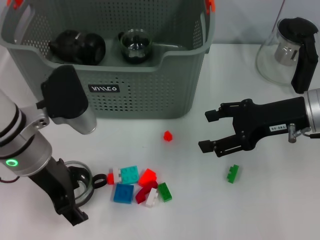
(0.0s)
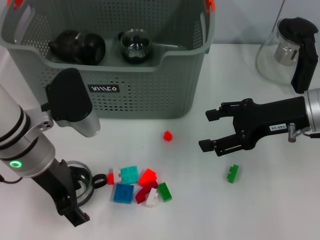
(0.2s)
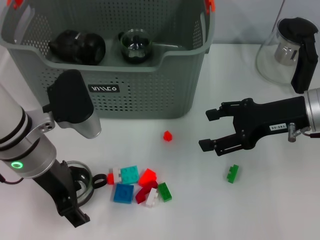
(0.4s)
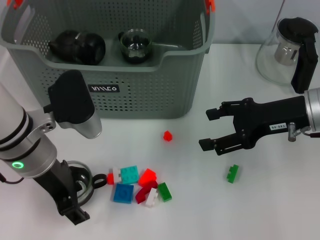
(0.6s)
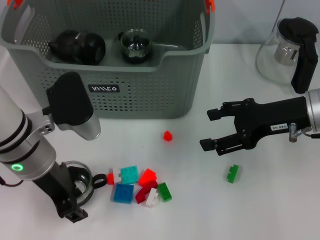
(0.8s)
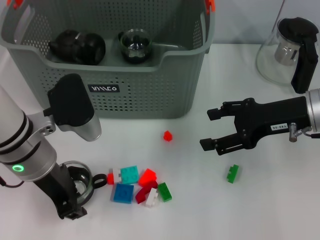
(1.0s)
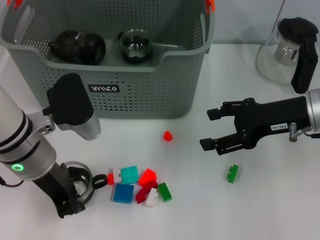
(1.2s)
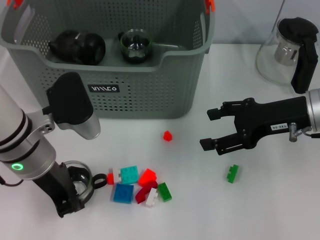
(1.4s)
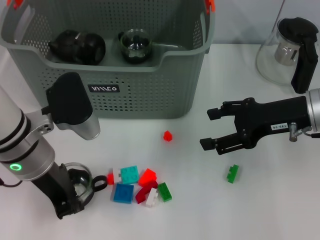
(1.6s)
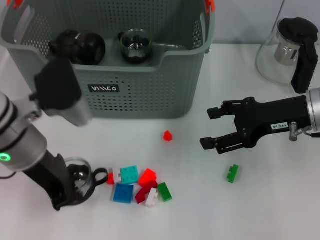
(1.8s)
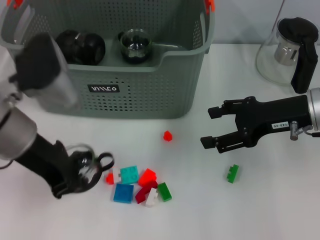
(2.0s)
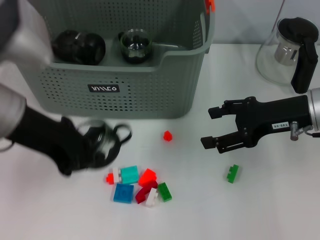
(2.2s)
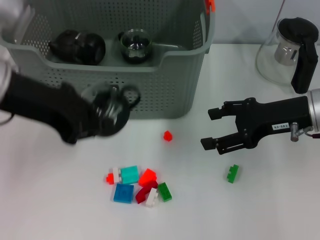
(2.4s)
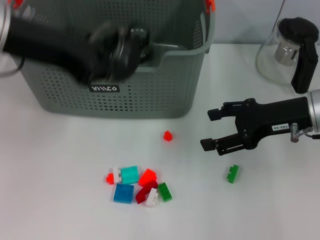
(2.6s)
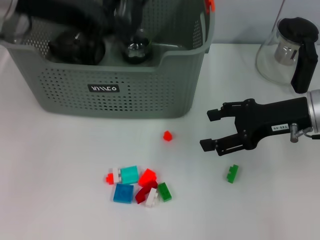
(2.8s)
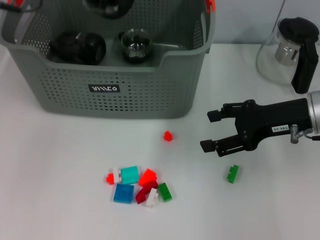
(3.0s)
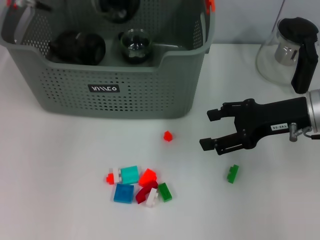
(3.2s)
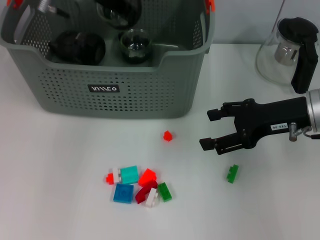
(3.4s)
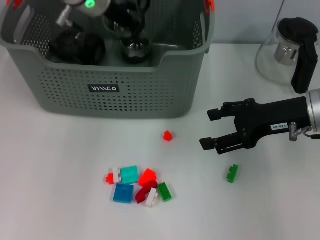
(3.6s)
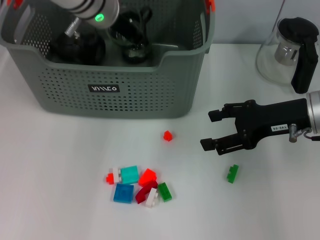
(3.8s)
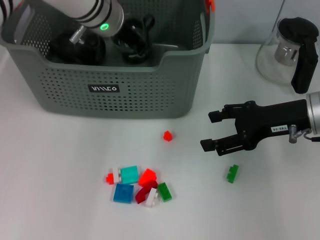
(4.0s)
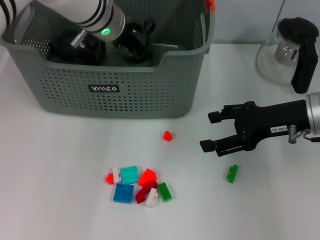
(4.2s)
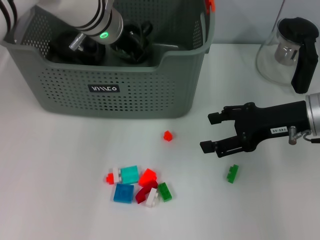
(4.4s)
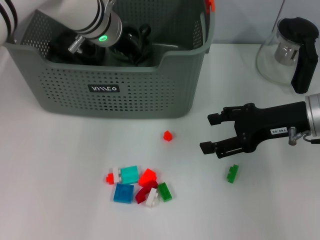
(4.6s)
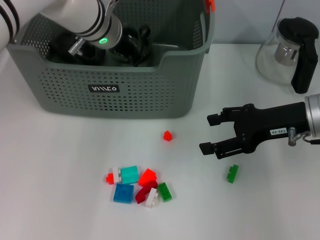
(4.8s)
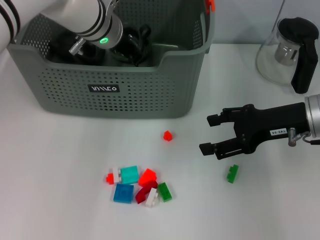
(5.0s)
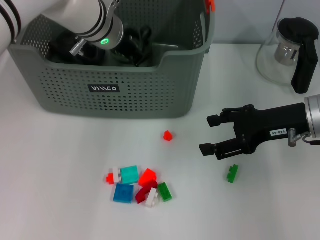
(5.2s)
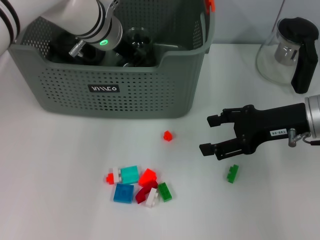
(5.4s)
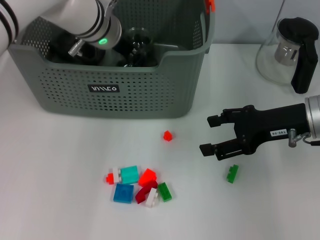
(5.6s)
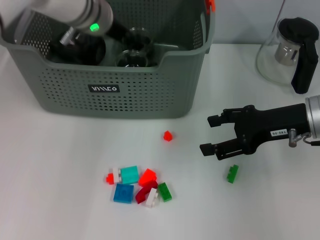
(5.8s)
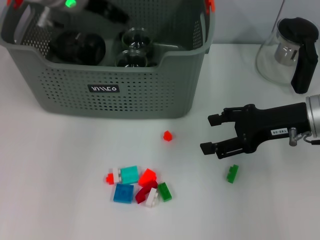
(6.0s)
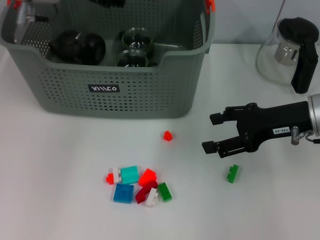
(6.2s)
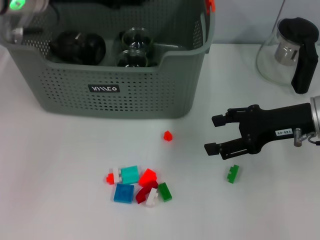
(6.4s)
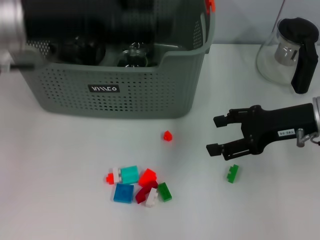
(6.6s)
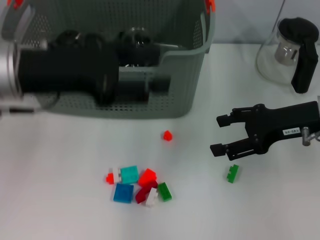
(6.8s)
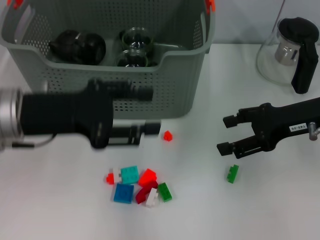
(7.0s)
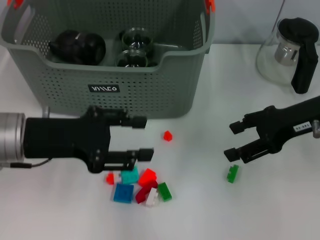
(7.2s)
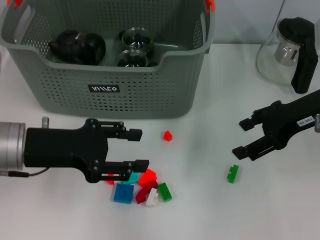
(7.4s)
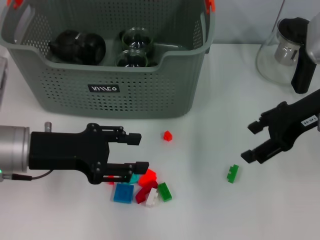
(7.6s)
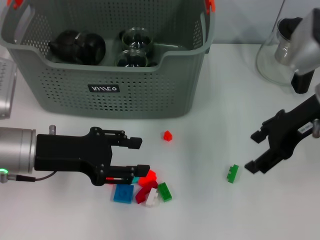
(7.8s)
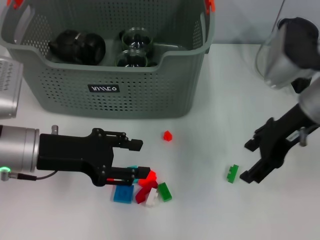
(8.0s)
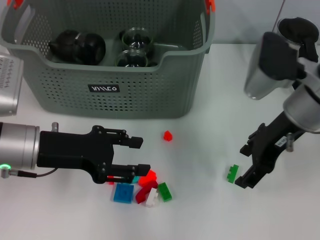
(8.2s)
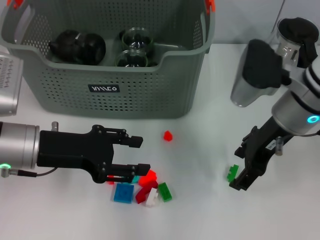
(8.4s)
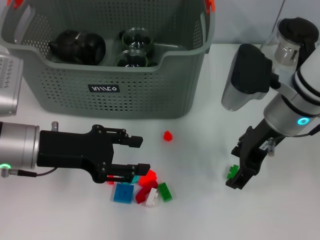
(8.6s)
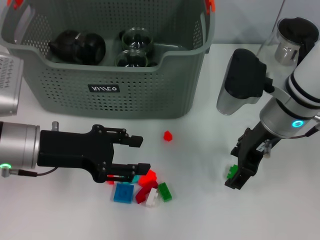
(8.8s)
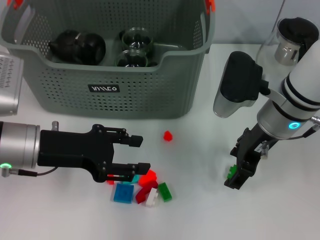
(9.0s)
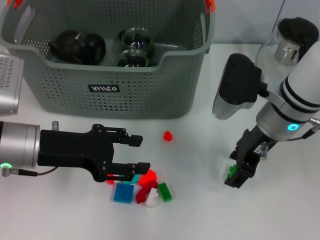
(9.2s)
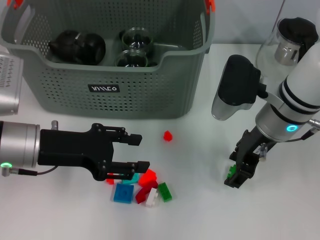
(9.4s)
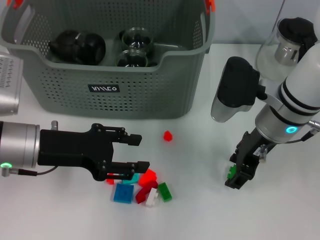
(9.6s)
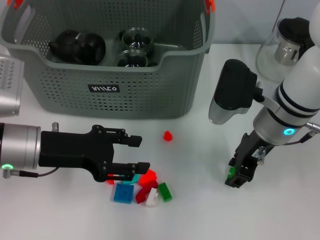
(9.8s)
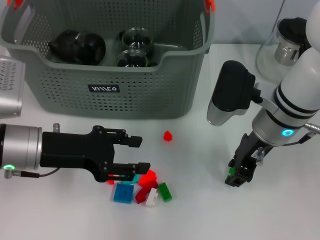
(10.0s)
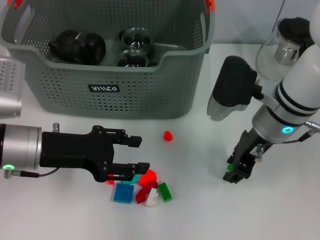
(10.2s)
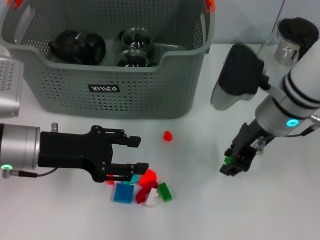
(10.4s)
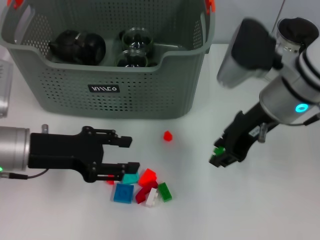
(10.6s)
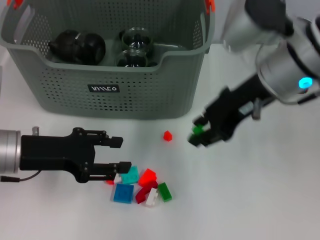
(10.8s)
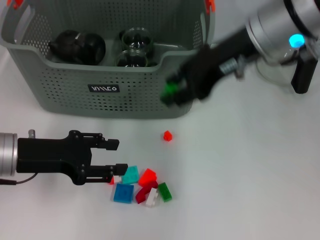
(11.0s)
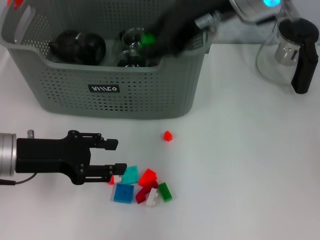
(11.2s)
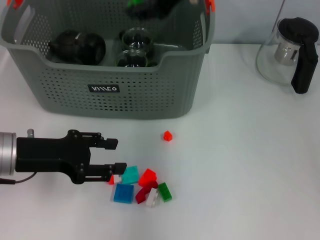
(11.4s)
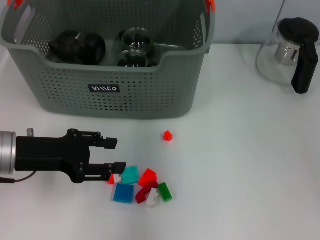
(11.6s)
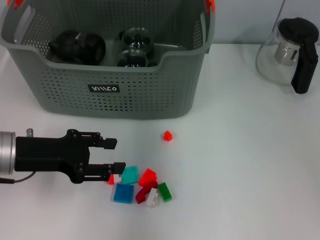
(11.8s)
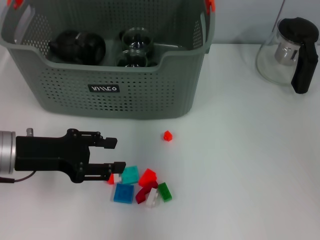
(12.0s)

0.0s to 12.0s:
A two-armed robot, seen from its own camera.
Task of the whole recording: pick up the teacup on the table and place it into the storage bin, pick up the block on the table and place it into the storage bin.
Step, 1.8s to 5.4s: Place the cup in the storage box with left gripper.
Step, 5.6s to 10.0s: Grasp the green block with right gripper.
Step, 10.2s to 12.0s: Place the green block in the storage box with right gripper.
0.0s to 1.6s: The left gripper closes its fingers.
1.6s to 3.0s: The left gripper heads upward and forward, covering roughly 20 cm.
3.0s to 4.4s: The left gripper goes approximately 15 cm downward, to the right and forward.
4.4s to 6.0s: The left gripper travels upward and to the left by some 10 cm, and opens.
6.0s to 7.6s: The right gripper travels upward by some 5 cm, while the left gripper moves backward and downward, roughly 20 cm.
7.6s to 9.0s: The right gripper heads to the left, covering some 10 cm.
9.0s to 10.4s: The right gripper closes up.
10.4s to 12.0s: The right gripper shifts about 20 cm upward, forward and to the left.

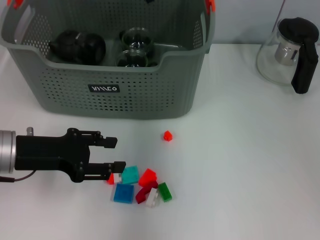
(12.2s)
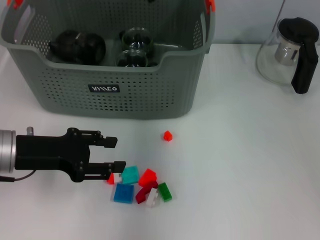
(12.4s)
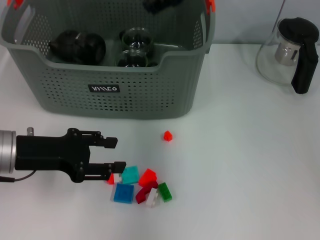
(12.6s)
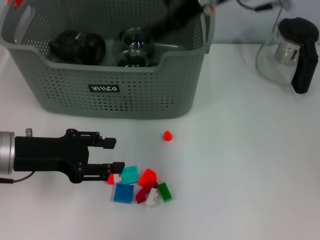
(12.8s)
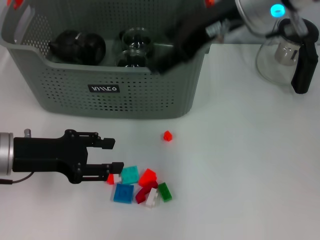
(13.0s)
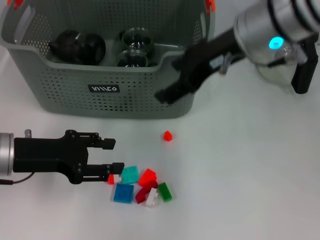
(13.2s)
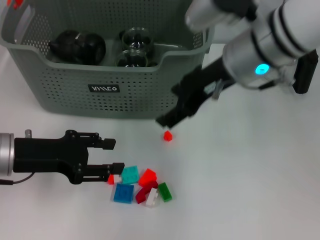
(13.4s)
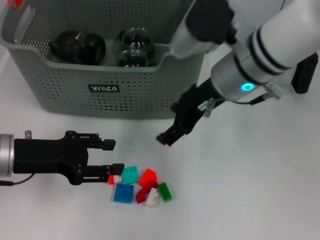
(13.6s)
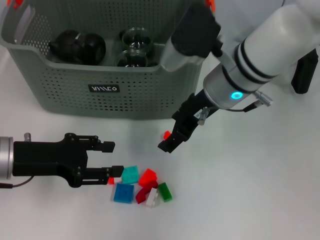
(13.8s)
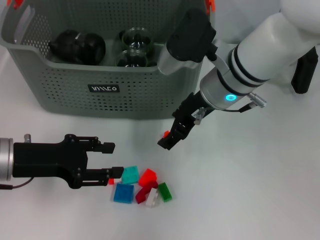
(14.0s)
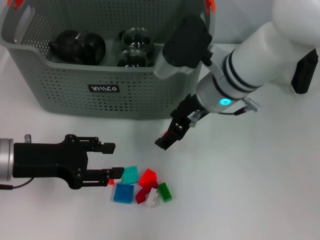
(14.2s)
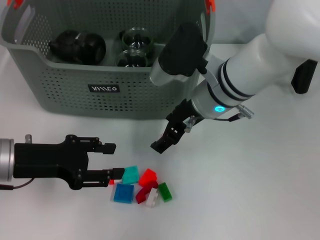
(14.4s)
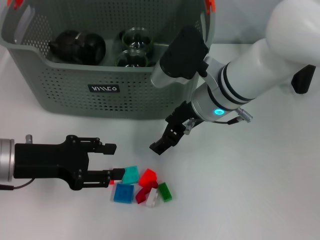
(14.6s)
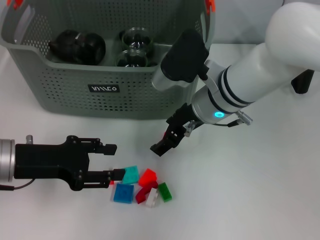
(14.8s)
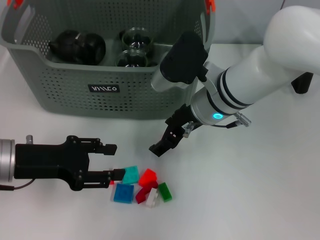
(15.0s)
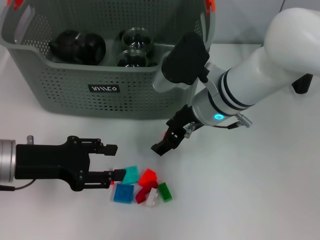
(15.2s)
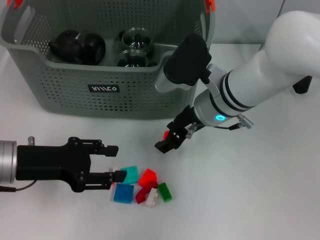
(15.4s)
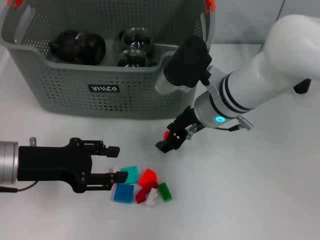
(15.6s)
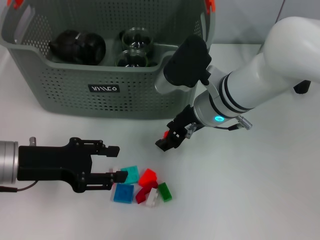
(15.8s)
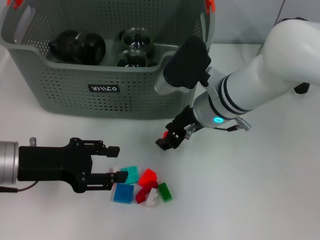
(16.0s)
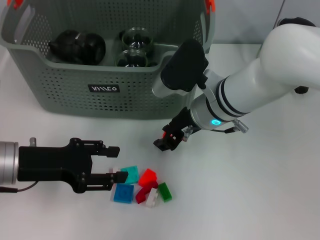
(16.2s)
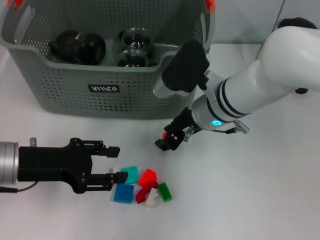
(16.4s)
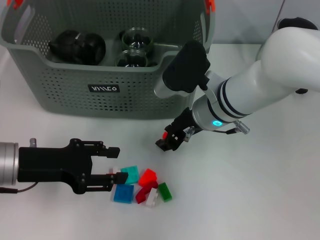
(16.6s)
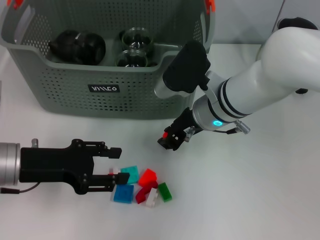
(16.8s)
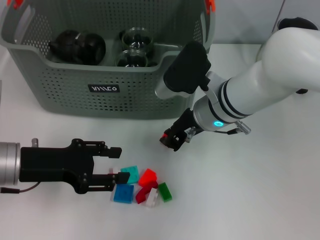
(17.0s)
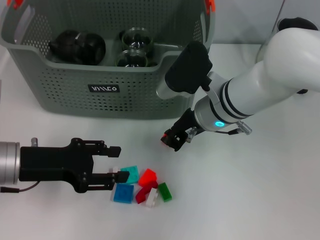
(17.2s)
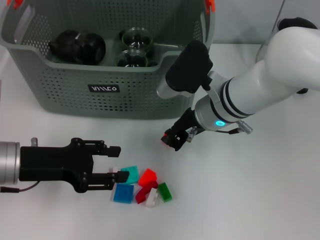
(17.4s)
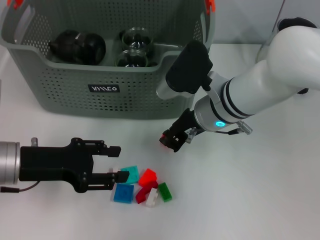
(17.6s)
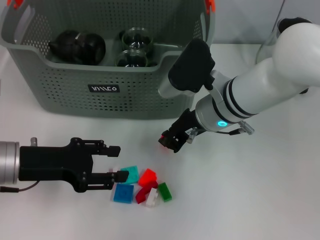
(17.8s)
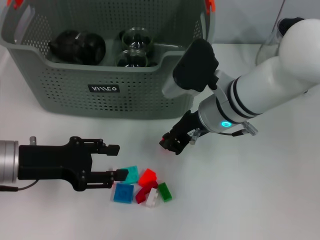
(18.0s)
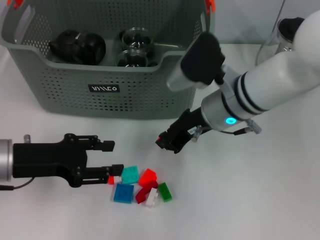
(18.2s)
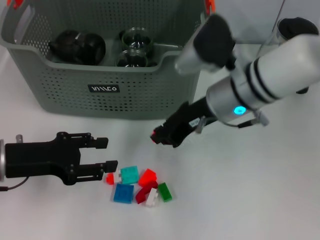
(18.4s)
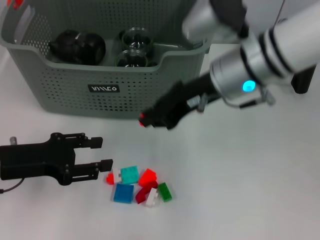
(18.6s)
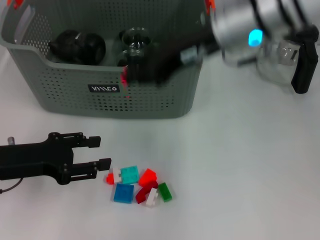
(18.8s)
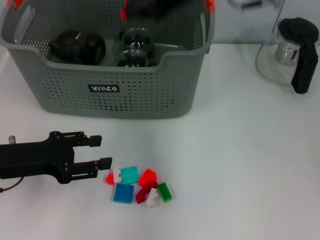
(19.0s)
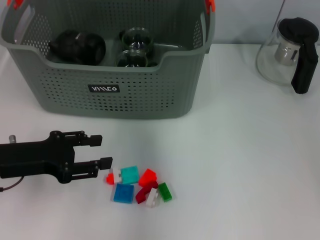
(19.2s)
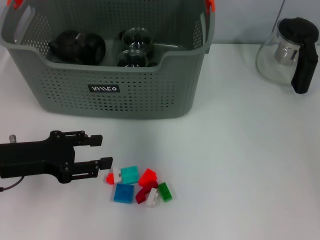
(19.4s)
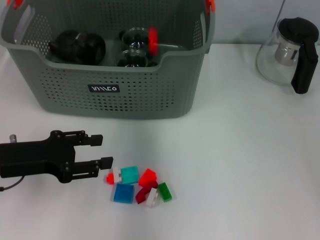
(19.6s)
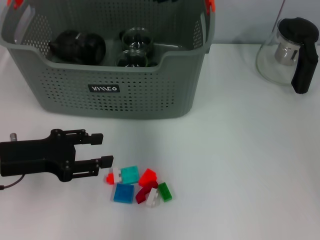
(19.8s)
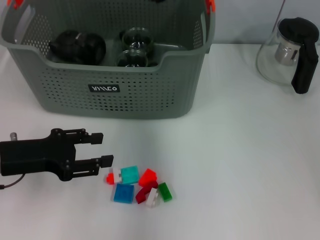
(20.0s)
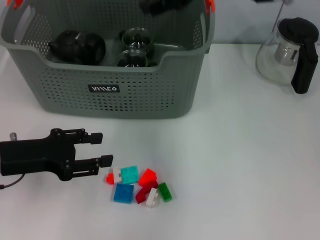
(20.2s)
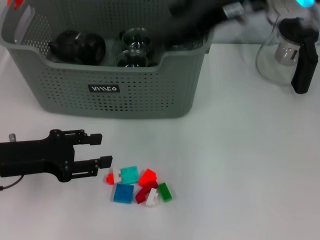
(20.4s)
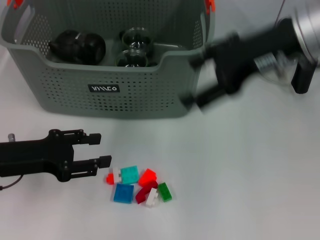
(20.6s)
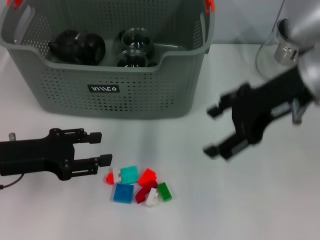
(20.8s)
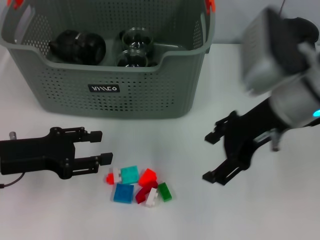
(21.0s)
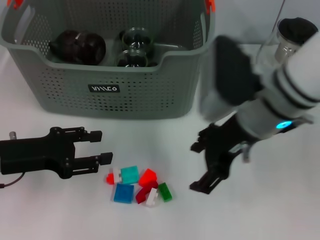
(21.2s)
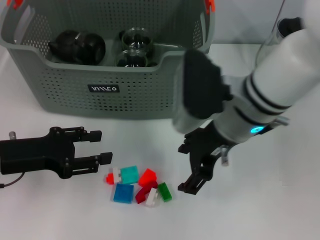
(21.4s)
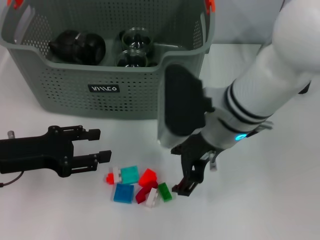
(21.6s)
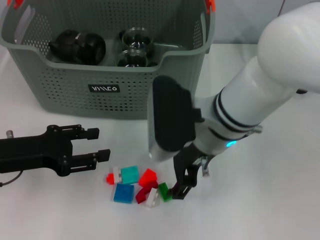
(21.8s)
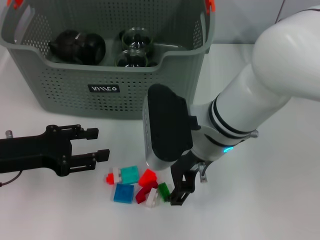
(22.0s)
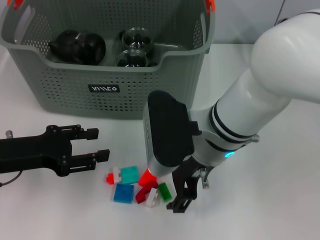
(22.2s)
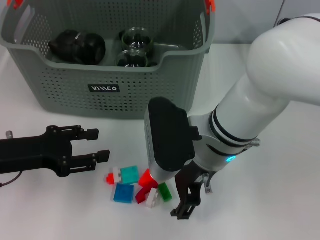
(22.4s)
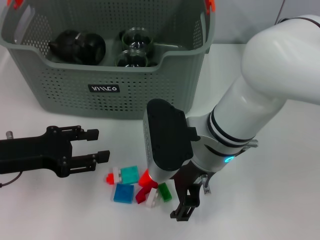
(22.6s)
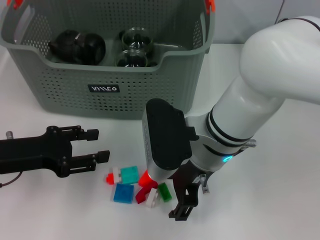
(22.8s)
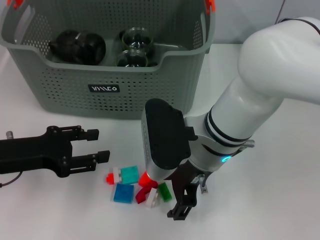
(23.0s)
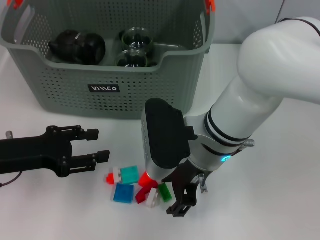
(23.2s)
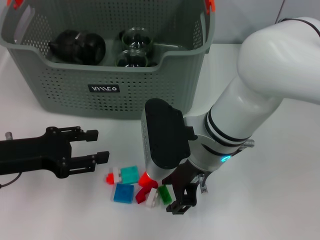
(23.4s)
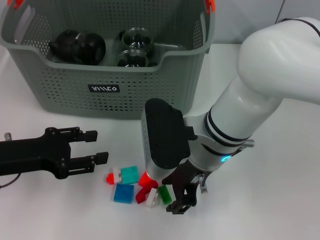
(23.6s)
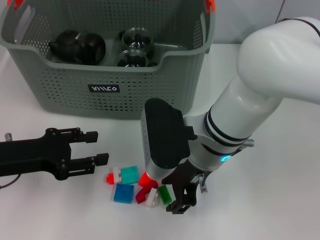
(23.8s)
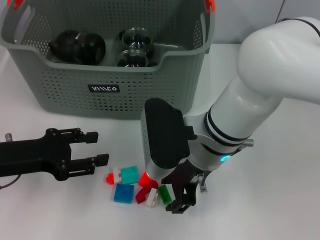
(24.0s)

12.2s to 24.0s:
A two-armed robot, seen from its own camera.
Task of the whole recording: pick up the teacup on the table and place it into the storage bin, pick up the block on the table and place it into the storage bin.
Step, 12.2s to 17.4s: Grasp the orange block with right gripper.
Step, 17.6s to 19.6s: Place the orange block in the storage box with right gripper.
12.2s to 13.6s: The right gripper moves downward and backward, some 10 cm.
13.6s to 15.2s: The right gripper heads downward, covering roughly 5 cm.
15.2s to 16.6s: The right gripper closes.
16.6s to 18.2s: The right gripper closes up.
18.2s to 19.6s: The right gripper shifts about 20 cm upward and forward.
19.6s to 21.0s: The right gripper shifts roughly 15 cm backward, downward and to the right, and opens.
21.0s to 22.6s: The right gripper moves to the left and downward, some 10 cm.
22.6s to 24.0s: Both grippers stay put.
